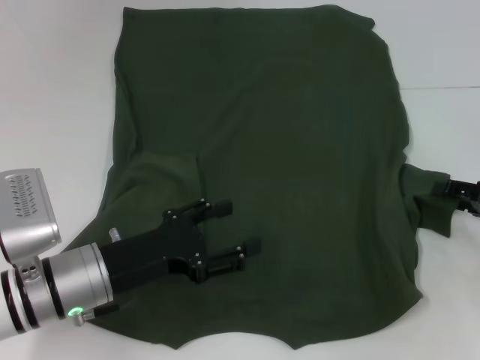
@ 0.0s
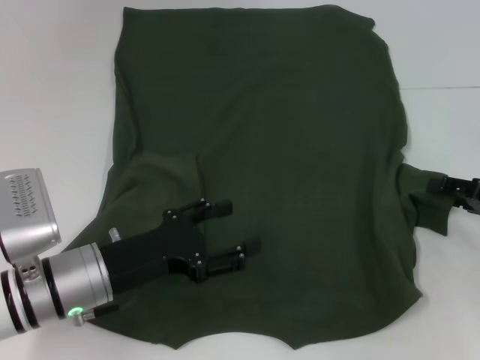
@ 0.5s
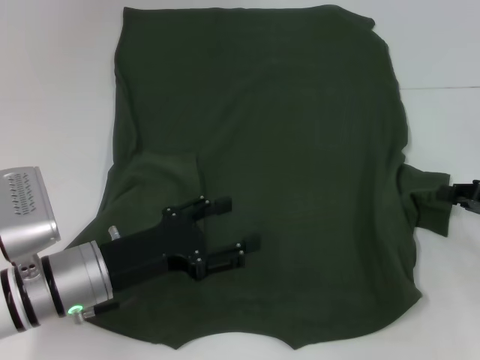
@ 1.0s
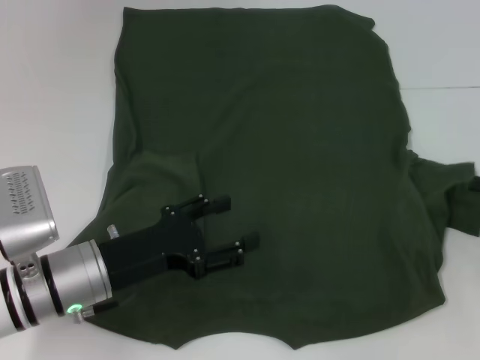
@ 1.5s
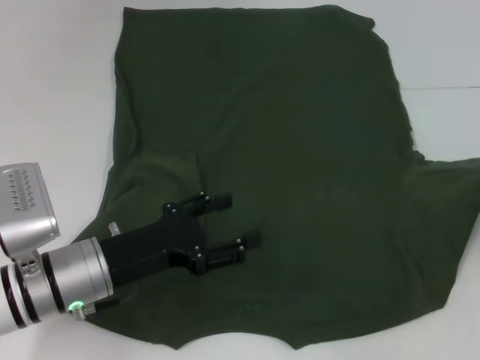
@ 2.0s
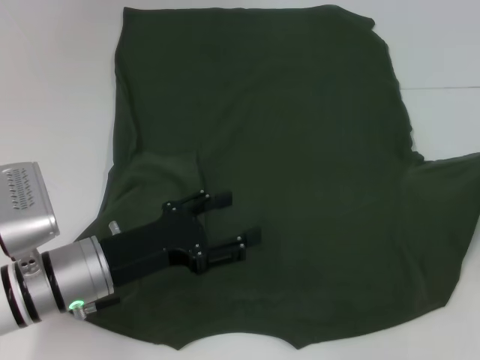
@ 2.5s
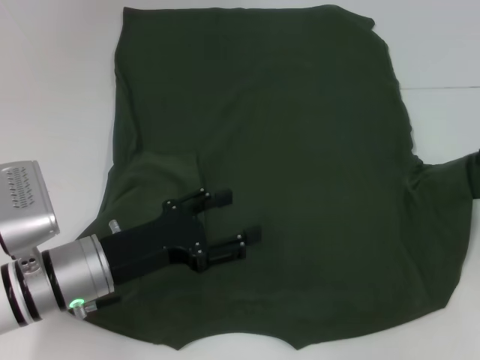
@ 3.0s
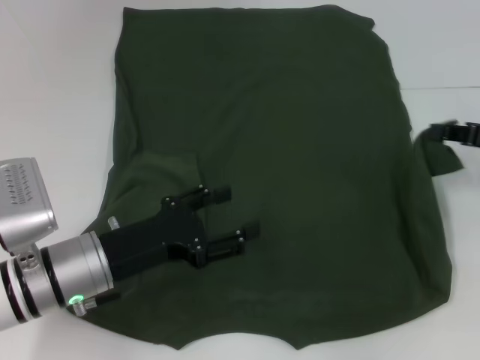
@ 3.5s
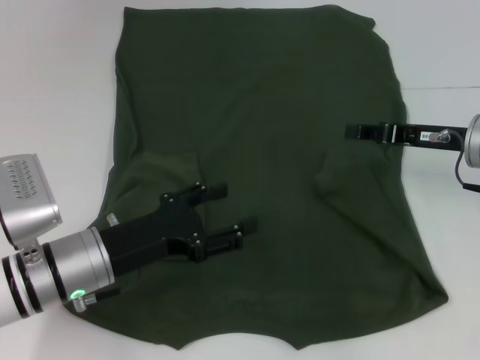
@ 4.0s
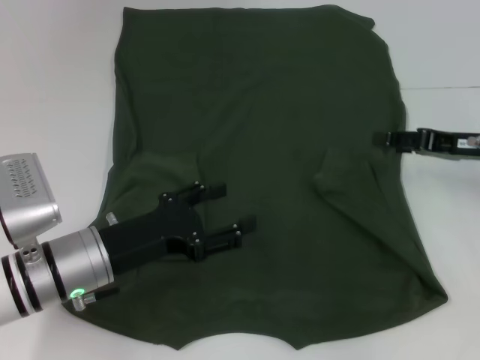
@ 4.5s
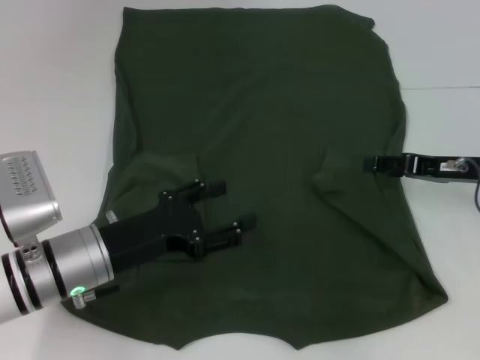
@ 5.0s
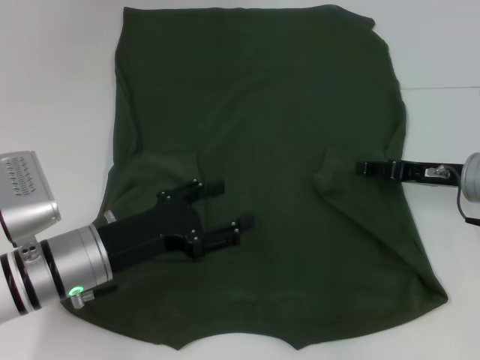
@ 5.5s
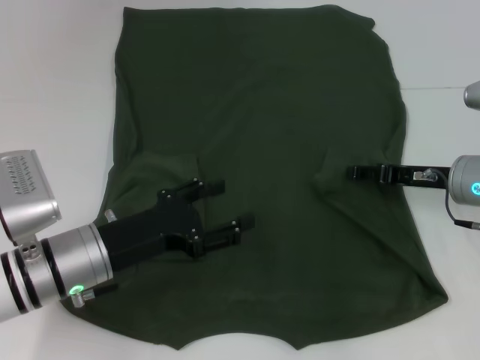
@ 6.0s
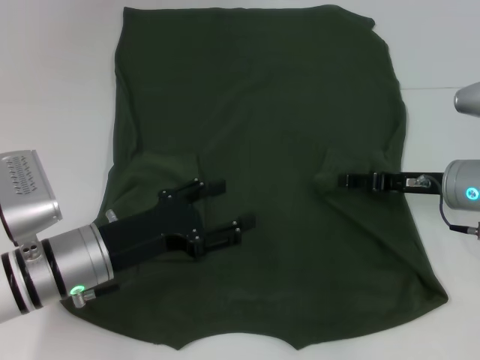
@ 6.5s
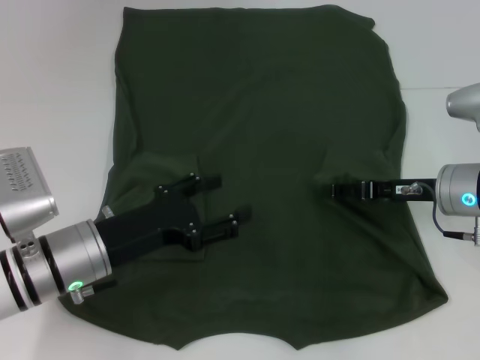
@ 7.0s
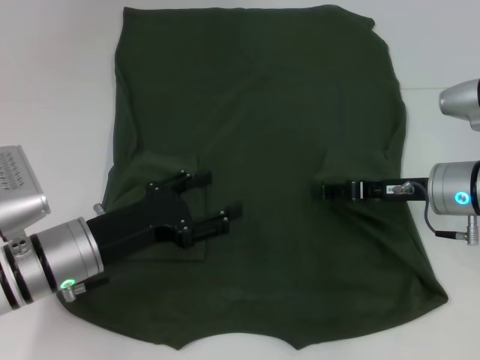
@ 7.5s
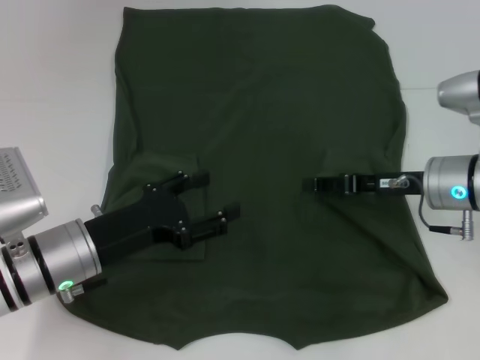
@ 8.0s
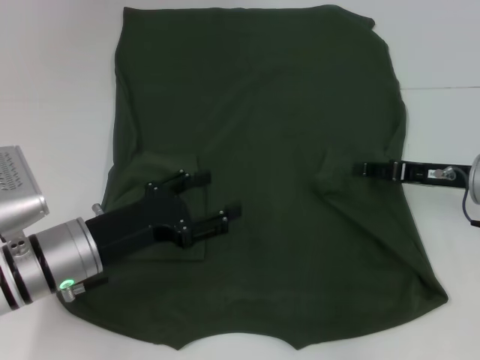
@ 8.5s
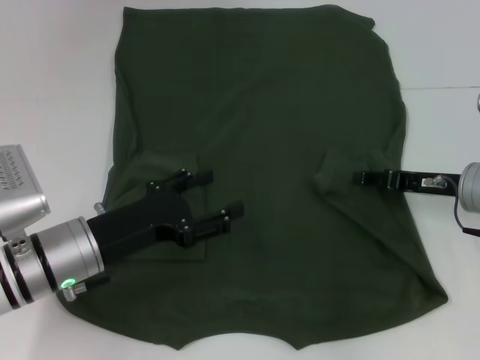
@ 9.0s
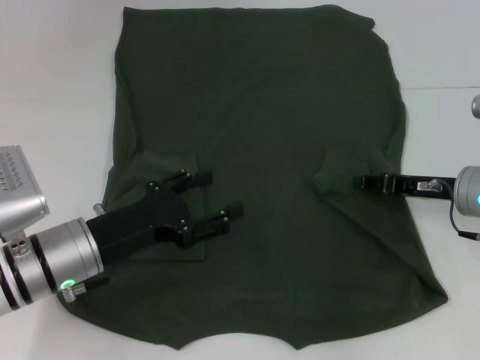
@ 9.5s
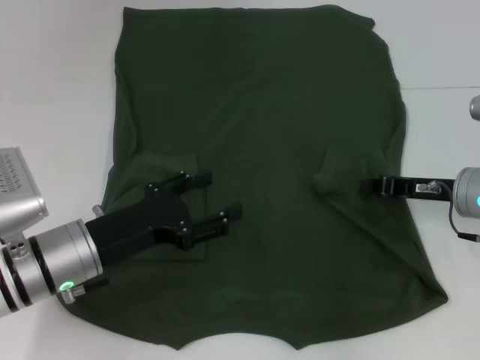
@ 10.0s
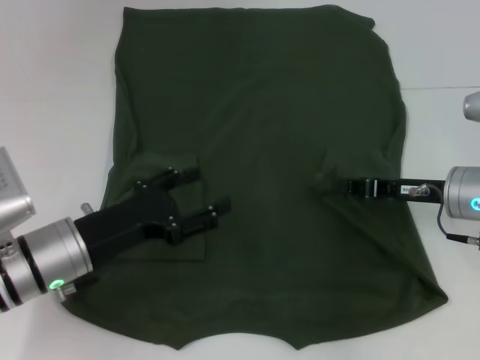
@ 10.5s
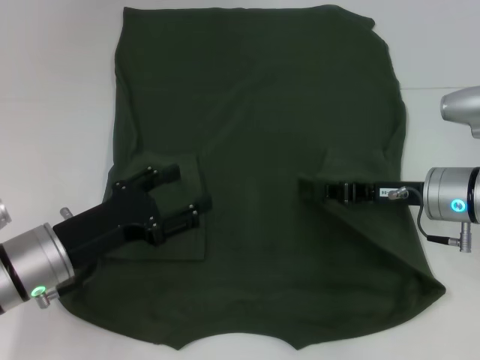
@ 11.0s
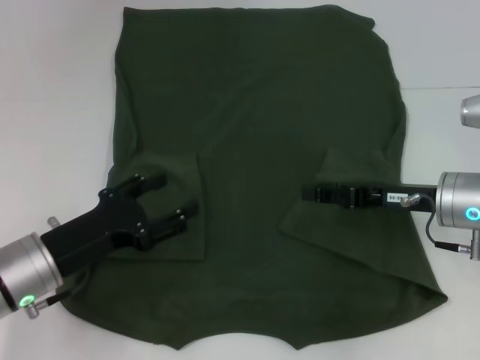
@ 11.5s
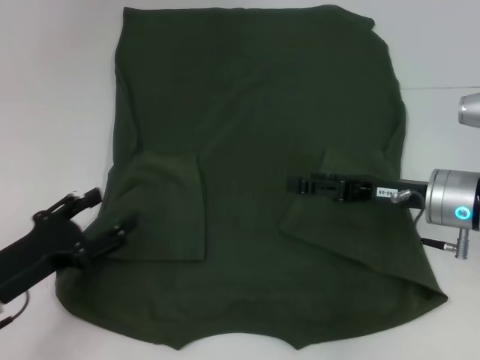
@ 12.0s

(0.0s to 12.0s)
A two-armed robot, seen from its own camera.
Step, 0.0s - 11.0s: Fold the bottom right sleeve with your right hand.
0.0s - 2.0s: The right gripper shifts about 5 cm to the right, and closes.
2.0s - 4.0s: The right gripper shifts approximately 15 cm to the left and forward.
4.0s - 6.0s: The right gripper opens up.
6.0s - 8.0s: The grippers make only small movements.
8.0s - 10.0s: The right gripper closes up.
10.0s - 12.0s: The right gripper opens up. The left gripper shifts about 10 cm to the left.

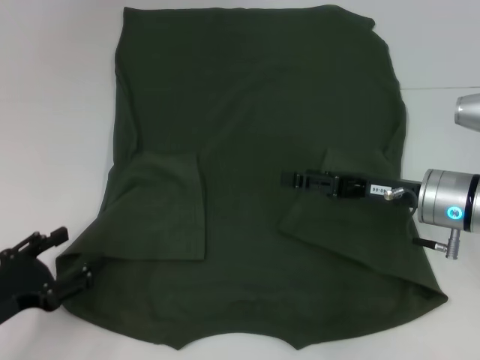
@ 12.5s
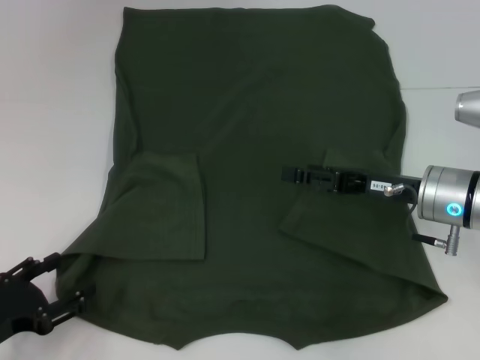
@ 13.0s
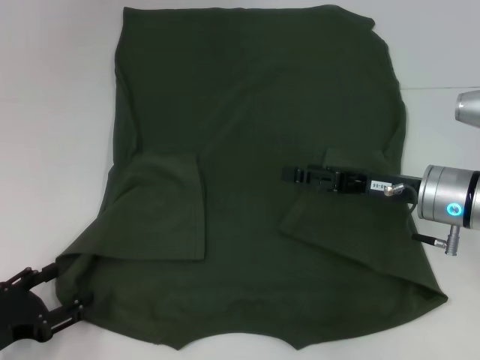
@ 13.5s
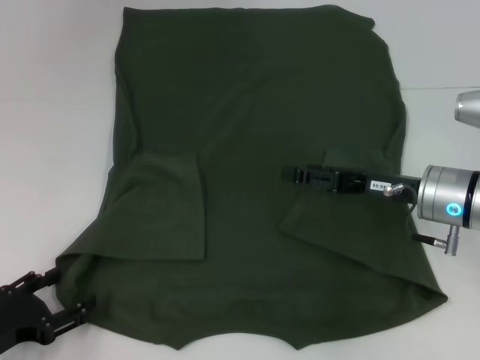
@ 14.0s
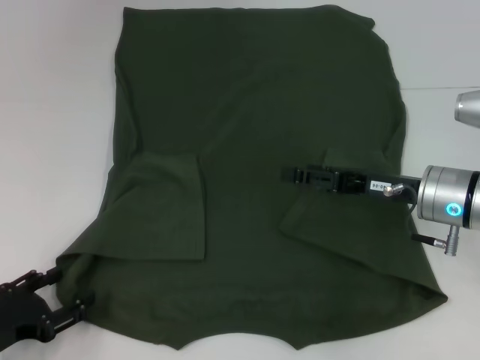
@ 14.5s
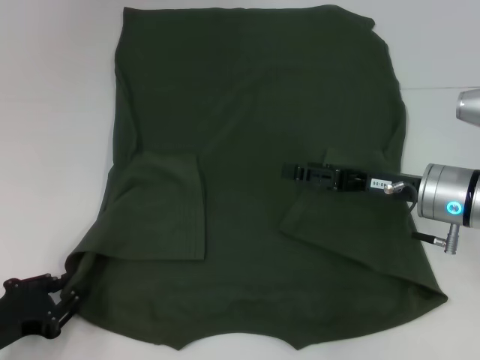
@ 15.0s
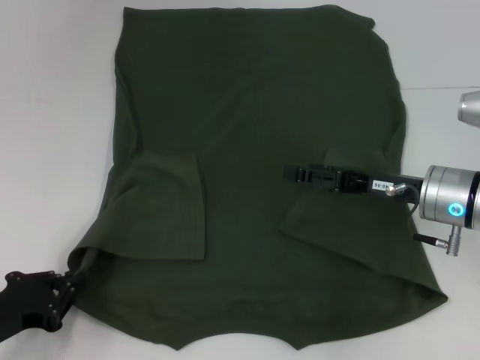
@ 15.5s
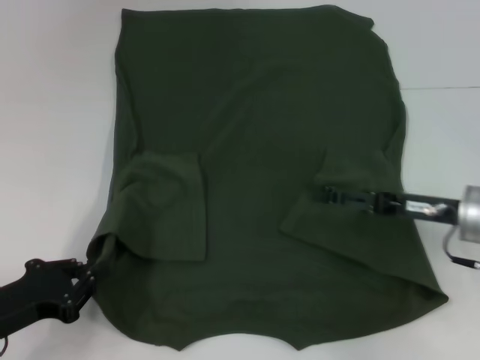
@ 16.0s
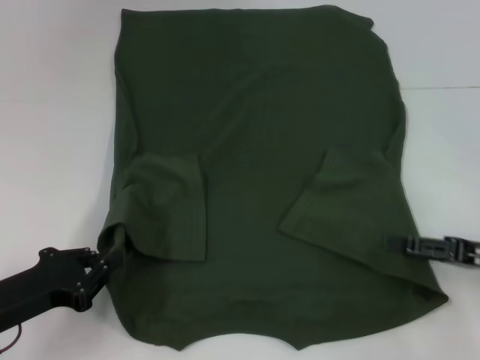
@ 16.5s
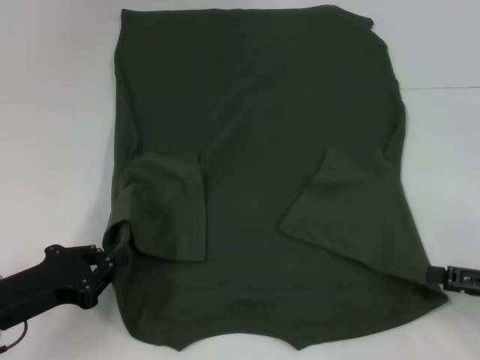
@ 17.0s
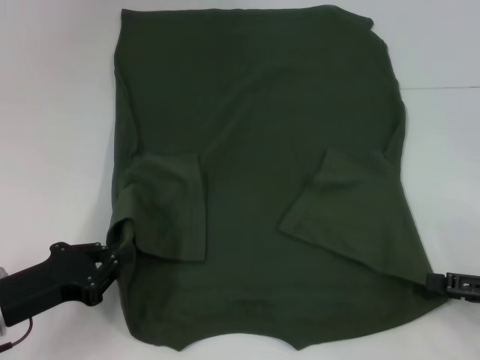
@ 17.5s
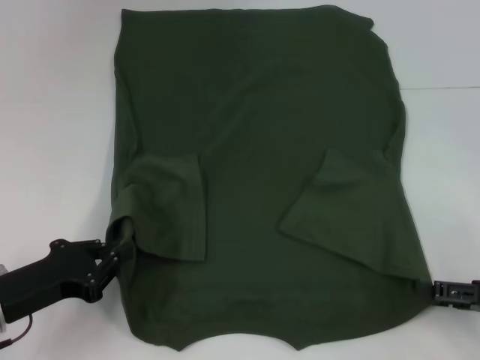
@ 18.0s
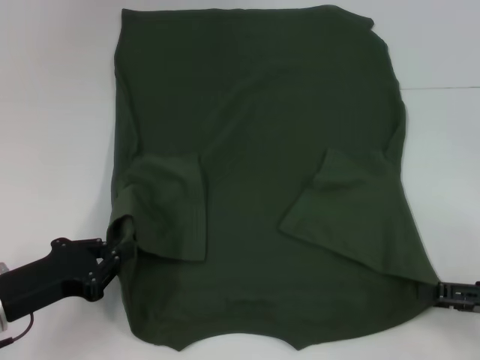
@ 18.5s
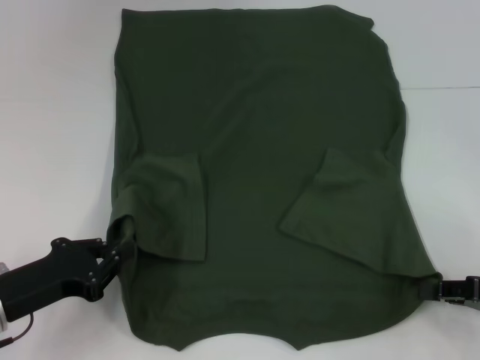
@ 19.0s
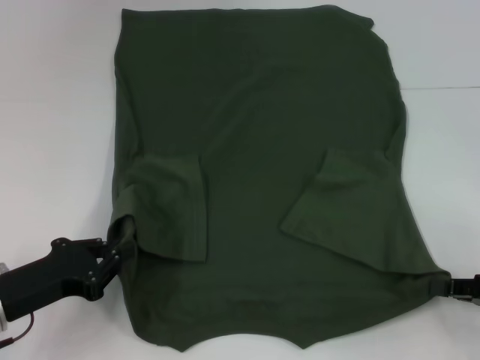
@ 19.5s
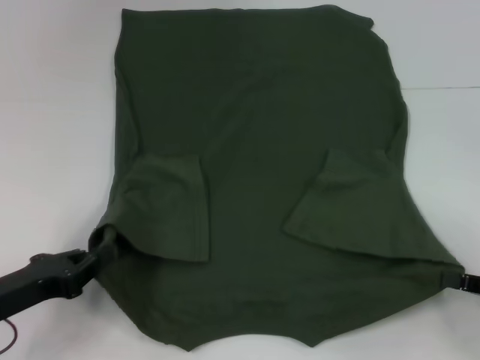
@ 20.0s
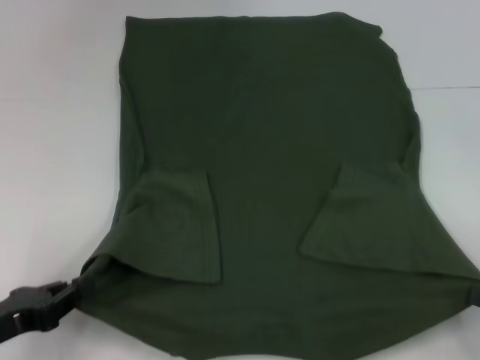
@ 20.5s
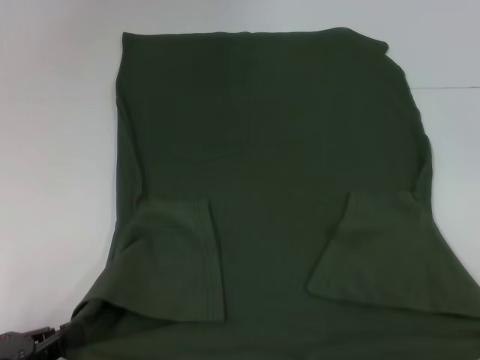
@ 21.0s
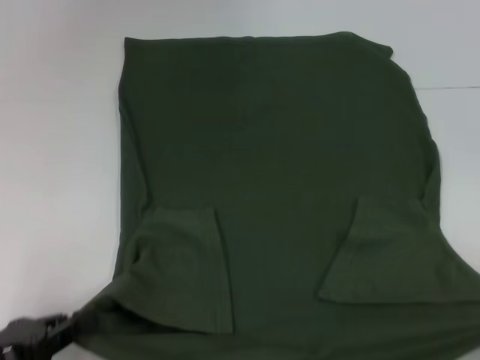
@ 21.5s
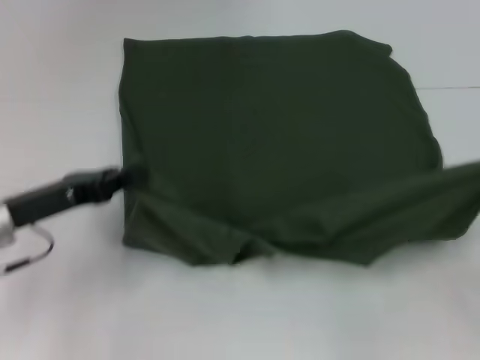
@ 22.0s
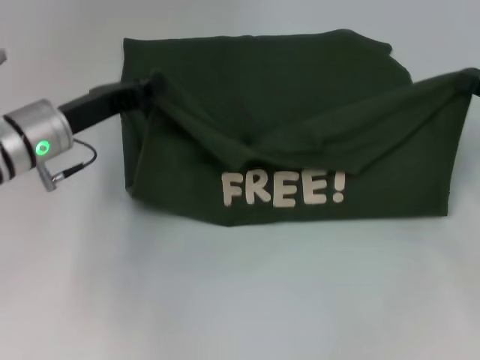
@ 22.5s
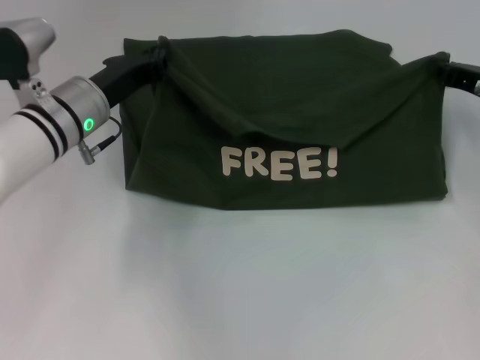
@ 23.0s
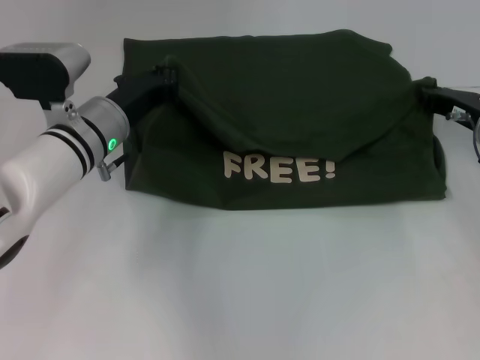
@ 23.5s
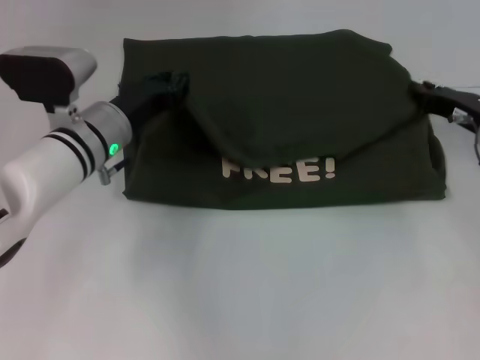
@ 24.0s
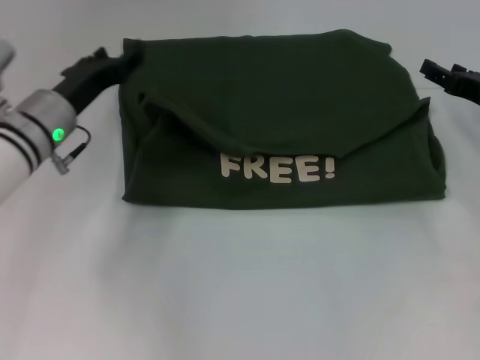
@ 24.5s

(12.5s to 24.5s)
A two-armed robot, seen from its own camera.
Step, 12.5s - 15.5s: Grab the bottom left corner with your left hand.
Step, 16.0s - 19.0s: Grab the bottom right corner with your right hand.
Step, 19.5s - 24.0s: Fold the clothes with your left hand.
Step, 19.5s - 24.0s: Fold the clothes with your right hand.
12.5s - 14.5s: The grippers stay close to where they were, moving slightly.
14.5s - 16.5s: The right gripper goes some 15 cm to the right and backward. Meanwhile the left gripper shifts by some 5 cm, and closes its fingers.
16.5s - 18.5s: There are only small adjustments of the grippers.
18.5s - 20.5s: The right gripper moves backward, approximately 5 cm, and closes up. The left gripper changes place by some 5 cm.
20.5s - 22.5s: The right gripper goes approximately 20 cm forward and upward. The left gripper shifts approximately 20 cm forward, to the right and upward.
22.5s - 24.5s: The left gripper opens its fingers, while the right gripper opens its fingers.

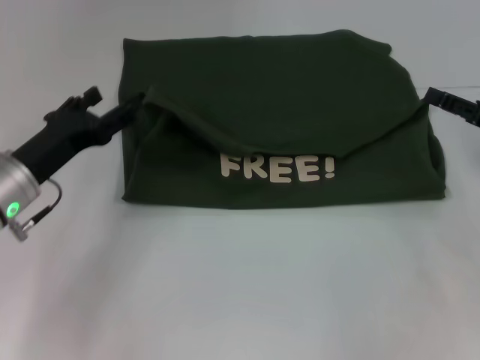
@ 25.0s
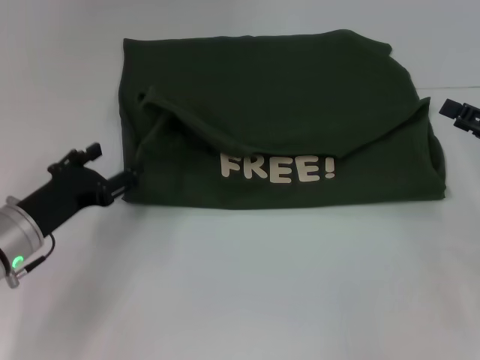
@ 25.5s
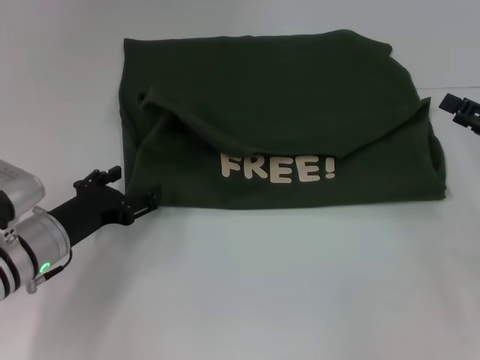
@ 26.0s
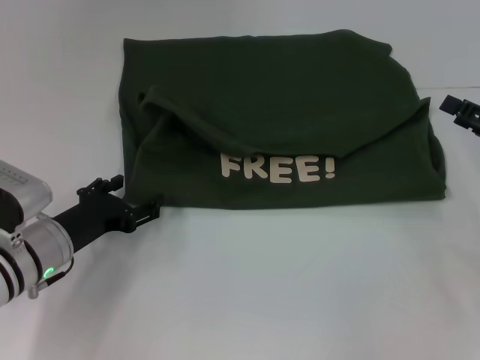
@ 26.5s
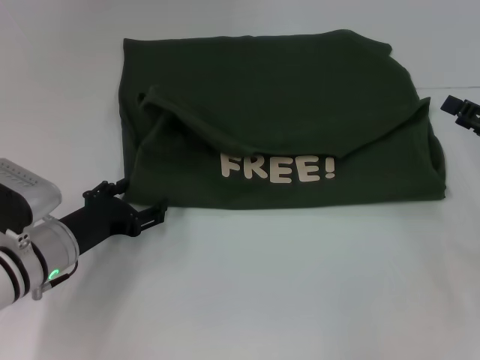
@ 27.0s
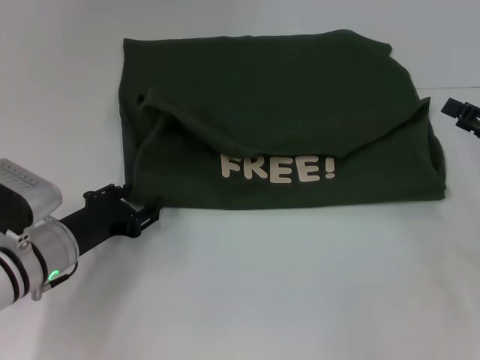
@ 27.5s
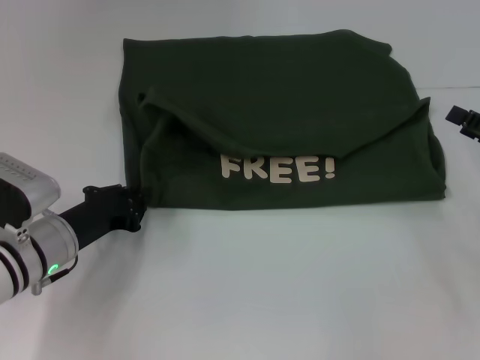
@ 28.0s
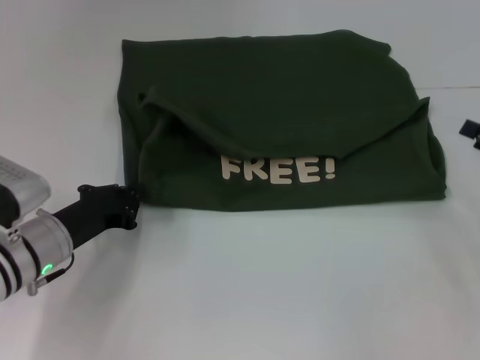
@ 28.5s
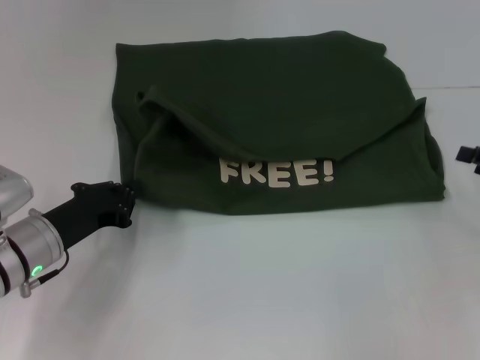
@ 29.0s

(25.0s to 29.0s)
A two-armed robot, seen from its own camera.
25.0s - 27.0s: The left gripper travels downward by about 5 cm.
27.0s - 29.0s: The left gripper closes up.
